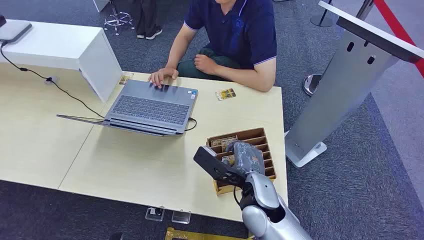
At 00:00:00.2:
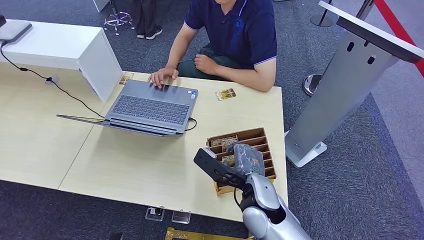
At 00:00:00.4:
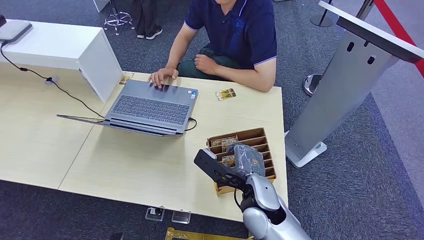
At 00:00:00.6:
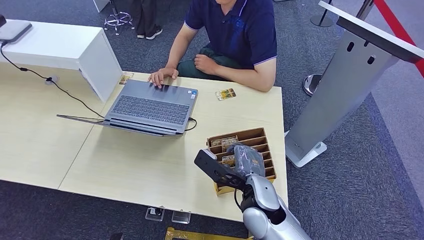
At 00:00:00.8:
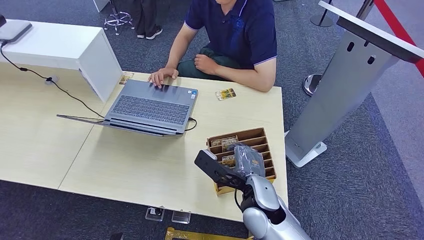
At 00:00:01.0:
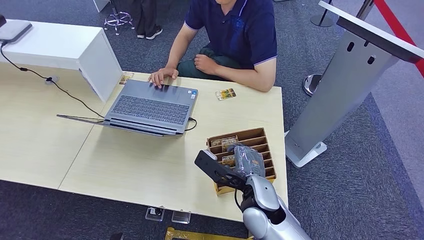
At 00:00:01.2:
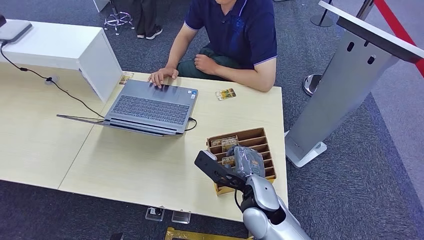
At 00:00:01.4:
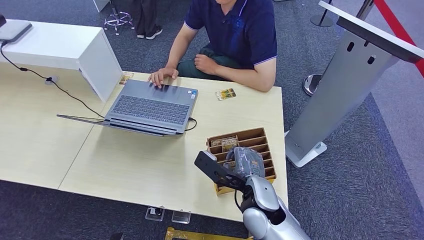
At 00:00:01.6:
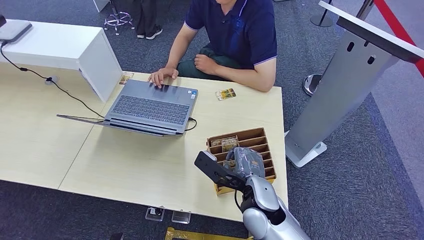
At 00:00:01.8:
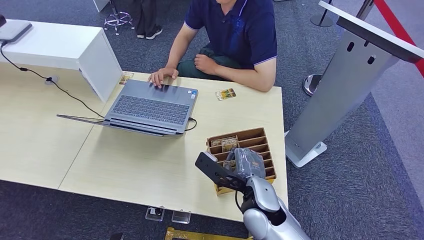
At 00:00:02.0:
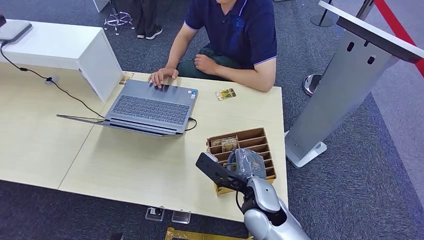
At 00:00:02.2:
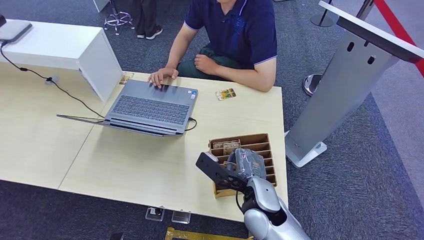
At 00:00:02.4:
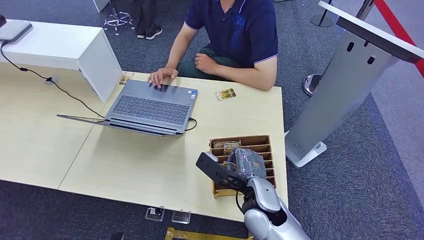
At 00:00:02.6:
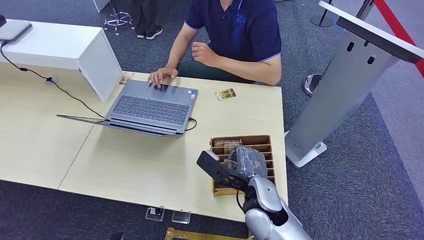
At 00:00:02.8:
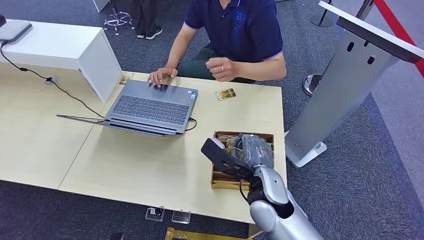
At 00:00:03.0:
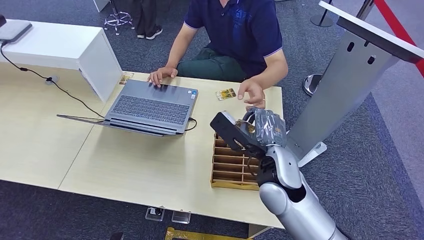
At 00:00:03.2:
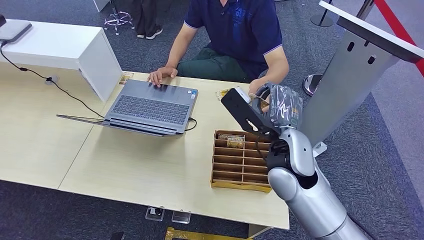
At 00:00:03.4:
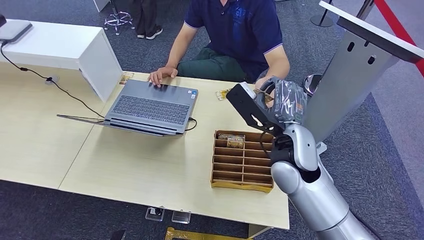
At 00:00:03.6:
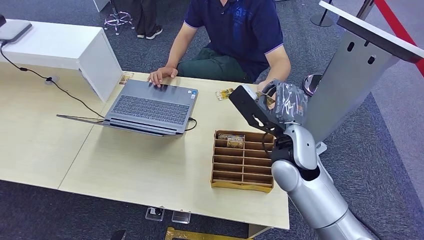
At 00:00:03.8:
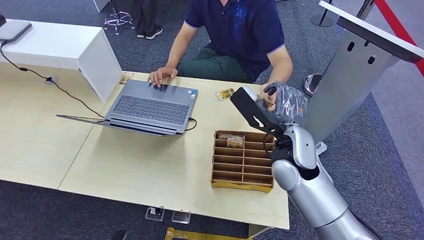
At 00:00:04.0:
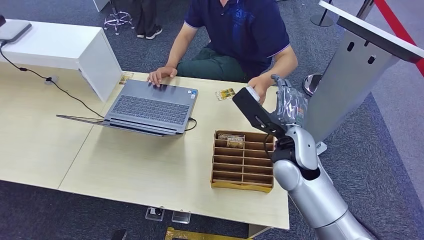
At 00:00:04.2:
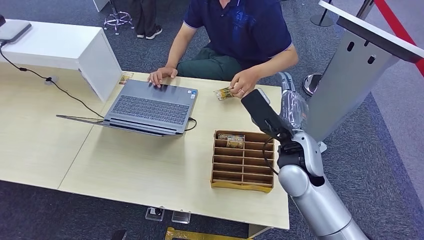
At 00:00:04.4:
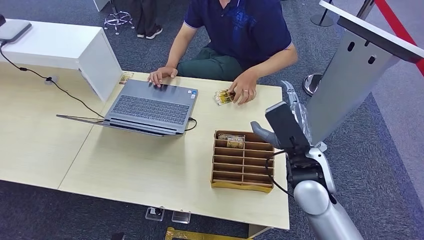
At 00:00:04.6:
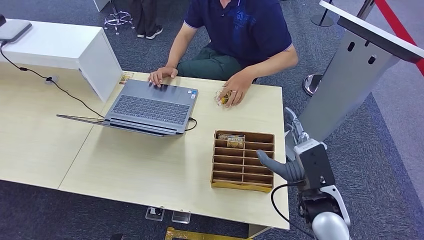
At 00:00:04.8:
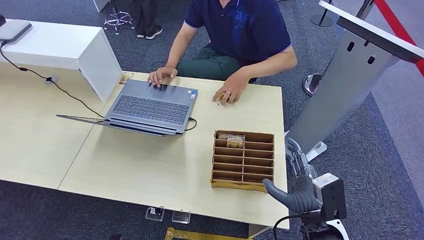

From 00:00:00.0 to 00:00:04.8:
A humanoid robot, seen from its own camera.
Step, from 00:00:00.0 to 00:00:02.8: Pick up the key card from the card box.
Step, from 00:00:03.0 to 00:00:04.8: Hand the key card to the target.
From 00:00:01.6 to 00:00:03.2: The right hand moves upward and forward, roughly 15 cm.
From 00:00:03.2 to 00:00:04.8: The right hand shifts approximately 20 cm downward, to the right and backward.
